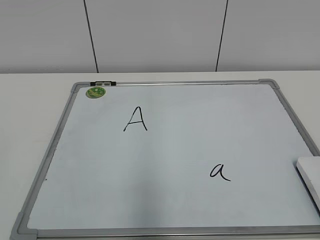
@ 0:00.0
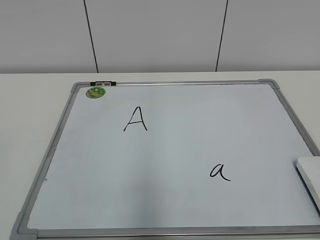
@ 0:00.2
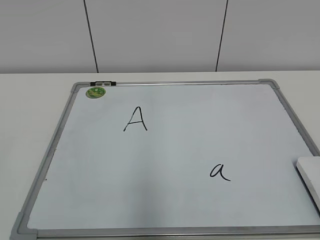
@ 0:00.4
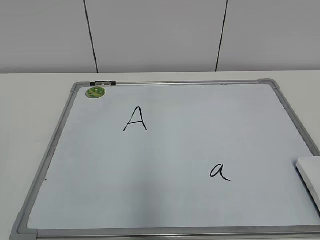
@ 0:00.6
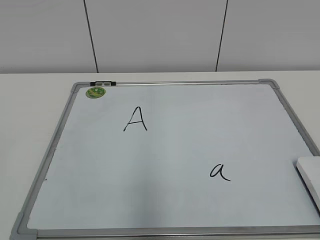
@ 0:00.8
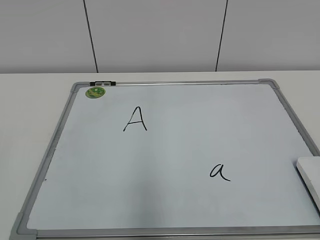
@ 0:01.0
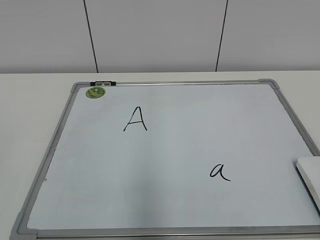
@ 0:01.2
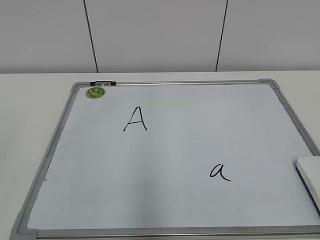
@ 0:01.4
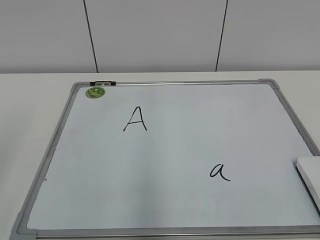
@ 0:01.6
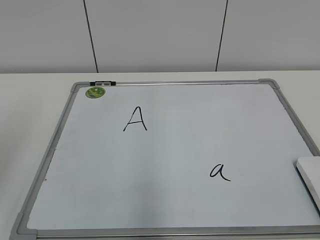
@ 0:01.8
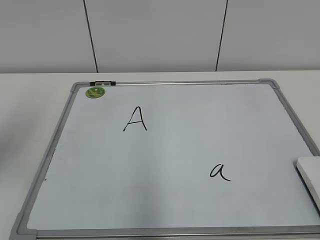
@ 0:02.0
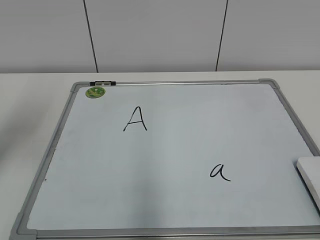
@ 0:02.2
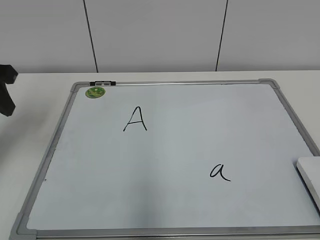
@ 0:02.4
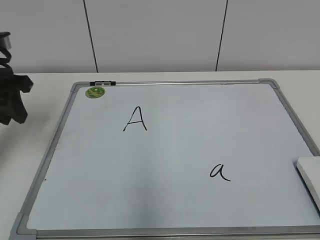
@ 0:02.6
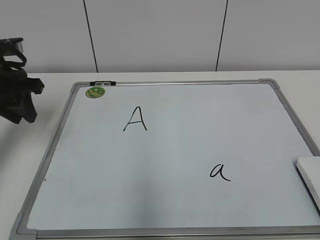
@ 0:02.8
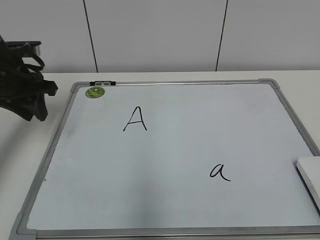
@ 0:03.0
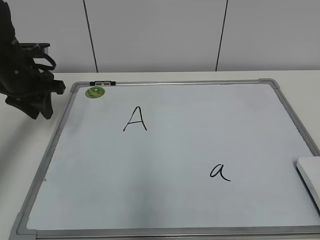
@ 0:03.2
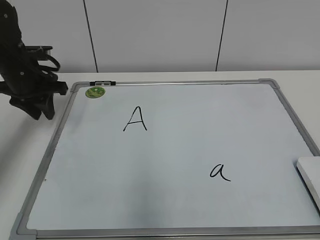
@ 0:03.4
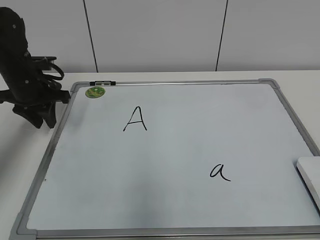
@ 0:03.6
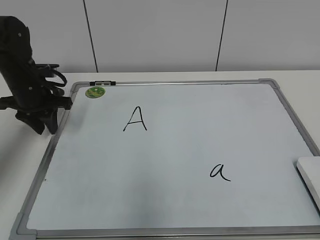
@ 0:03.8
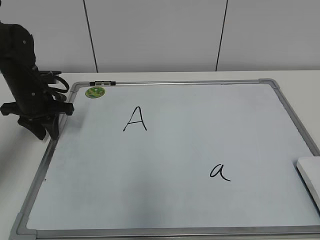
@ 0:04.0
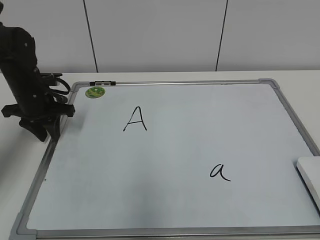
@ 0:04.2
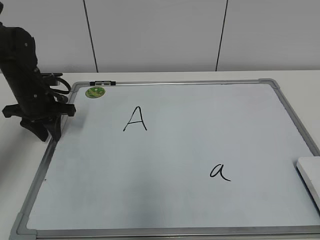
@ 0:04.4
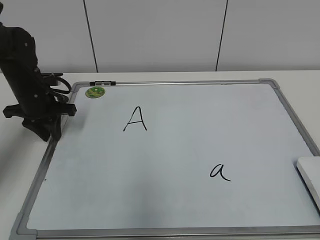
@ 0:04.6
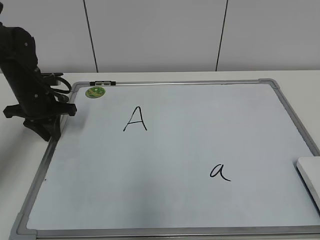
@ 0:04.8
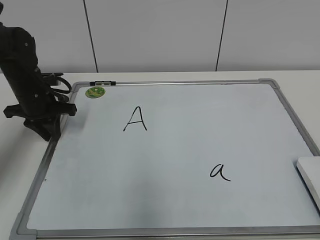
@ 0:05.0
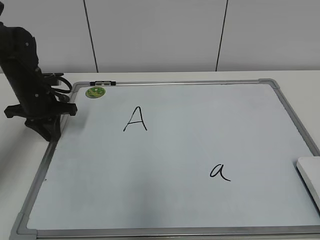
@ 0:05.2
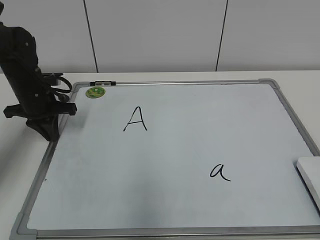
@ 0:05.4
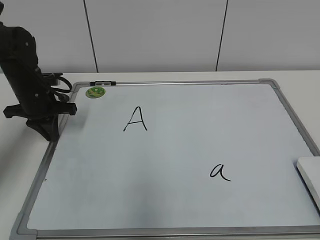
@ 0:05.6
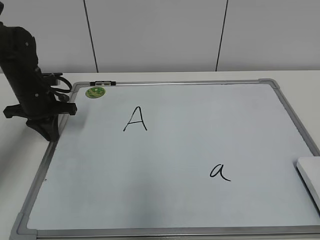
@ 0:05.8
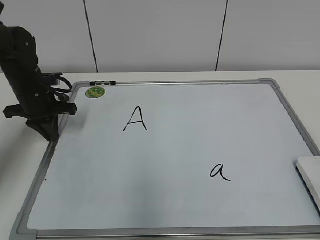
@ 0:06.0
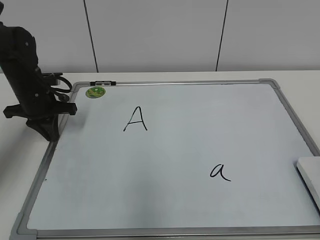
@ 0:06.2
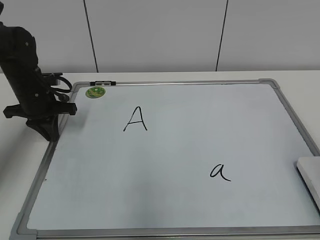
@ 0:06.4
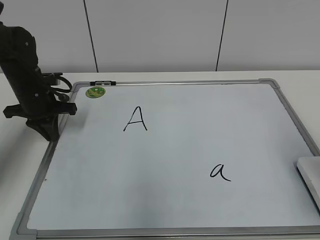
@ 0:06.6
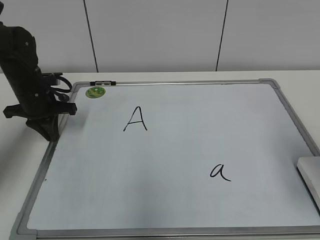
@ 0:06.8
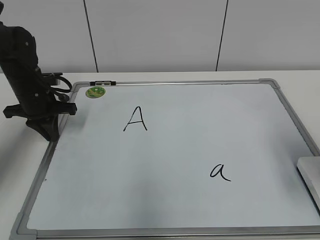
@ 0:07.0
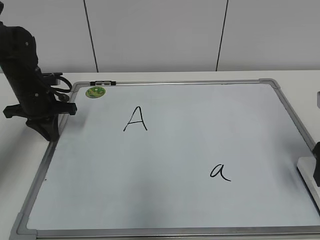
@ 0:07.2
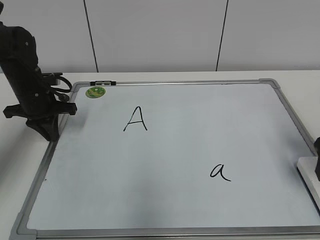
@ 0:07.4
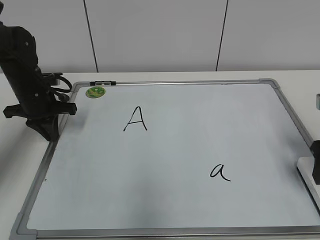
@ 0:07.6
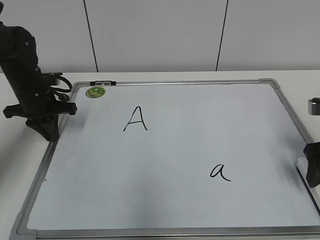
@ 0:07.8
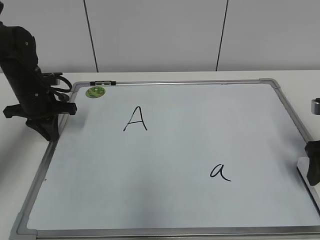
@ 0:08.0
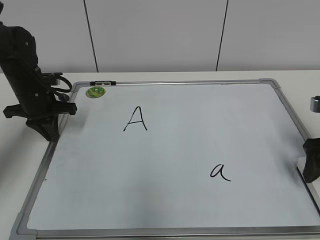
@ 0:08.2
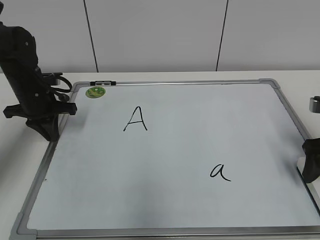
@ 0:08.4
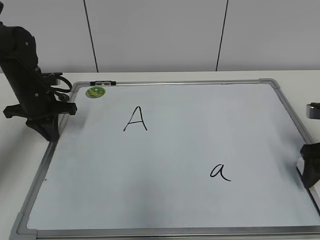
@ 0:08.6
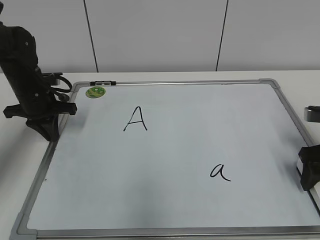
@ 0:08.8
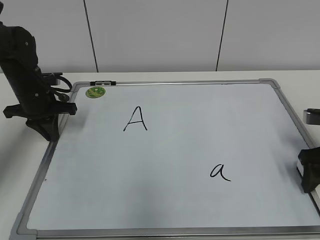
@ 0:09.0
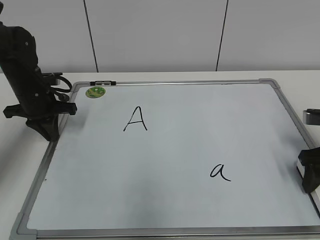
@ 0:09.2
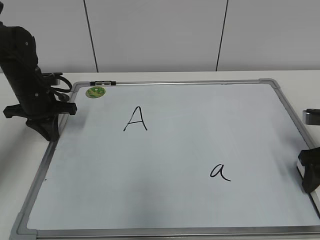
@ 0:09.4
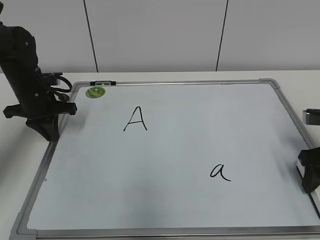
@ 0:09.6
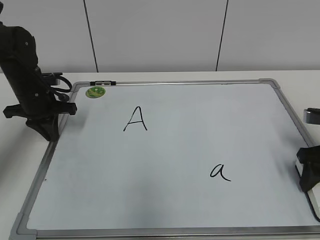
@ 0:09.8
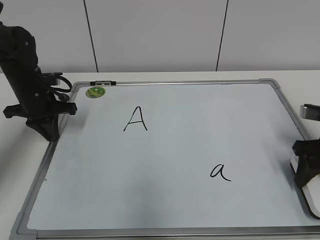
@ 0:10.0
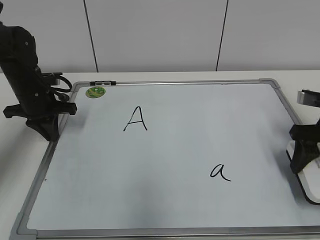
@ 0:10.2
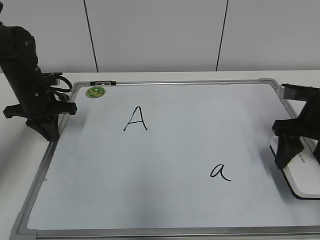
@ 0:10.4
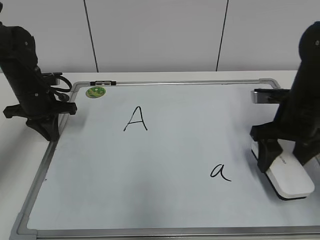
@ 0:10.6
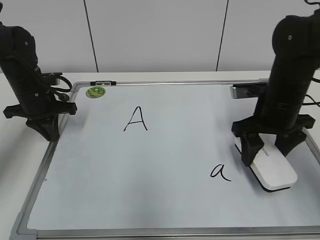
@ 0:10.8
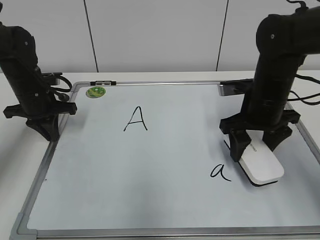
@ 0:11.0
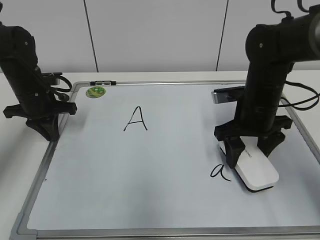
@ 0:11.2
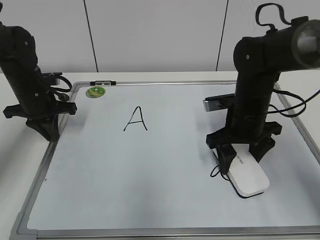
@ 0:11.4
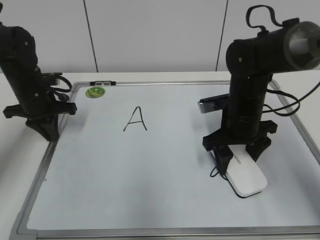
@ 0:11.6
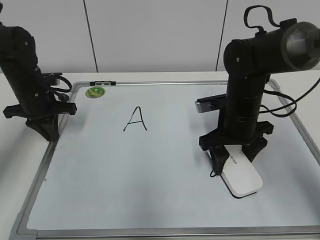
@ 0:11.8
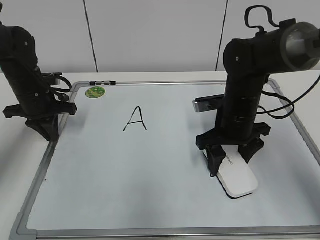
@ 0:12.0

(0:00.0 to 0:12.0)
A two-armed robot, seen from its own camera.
Task of the whole recording: pick up the eraser on the blackboard and erase the letter "a".
Step, 0:00.0 - 0:05.4: Hold the drawing board steady with your left hand.
0:01.6 - 0:03.0: The left gripper goes roughly 30 cm forward.
0:03.0 - 0:04.4: The left gripper is displaced downward by approximately 10 cm.
0:04.4 - 0:06.0: The left gripper closes up.
0:06.0 - 0:07.6: The right gripper moves forward, roughly 25 cm, and opens its fingers.
0:07.6 - 0:09.0: The right gripper is displaced downward by about 5 cm.
0:09.0 - 0:10.4: The right gripper changes place by approximately 5 cm, and closes up.
0:10.4 - 0:12.0: The right gripper heads to the left, covering roughly 15 cm.

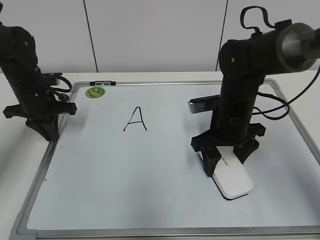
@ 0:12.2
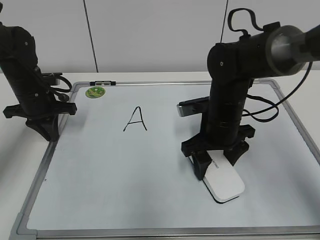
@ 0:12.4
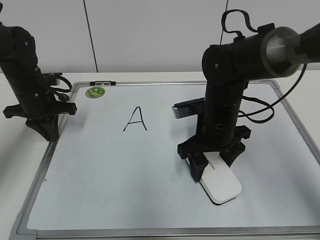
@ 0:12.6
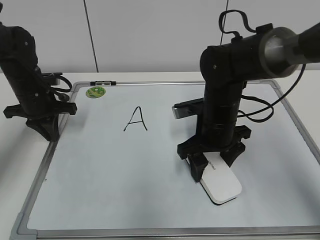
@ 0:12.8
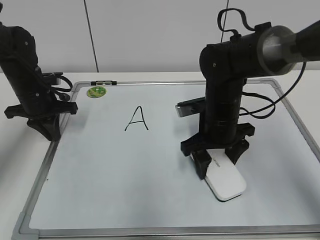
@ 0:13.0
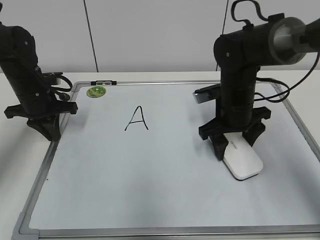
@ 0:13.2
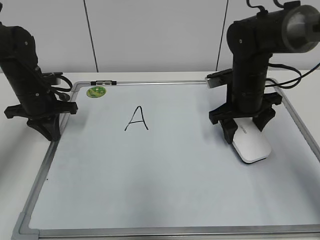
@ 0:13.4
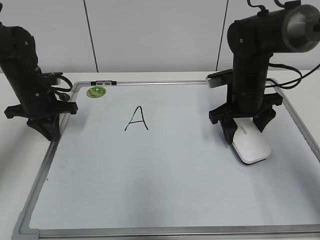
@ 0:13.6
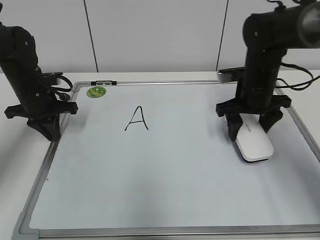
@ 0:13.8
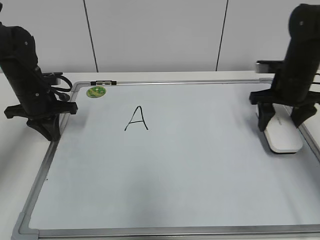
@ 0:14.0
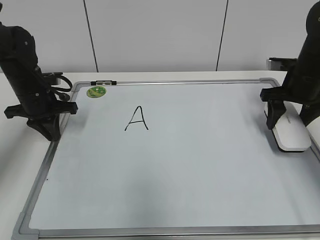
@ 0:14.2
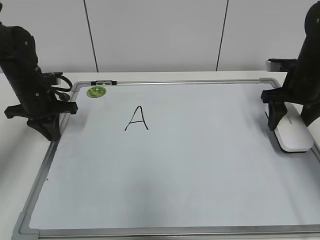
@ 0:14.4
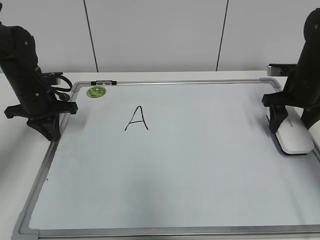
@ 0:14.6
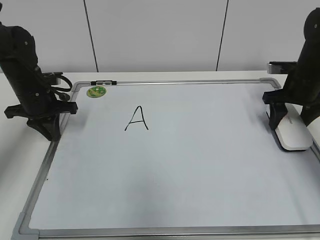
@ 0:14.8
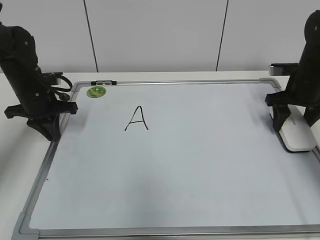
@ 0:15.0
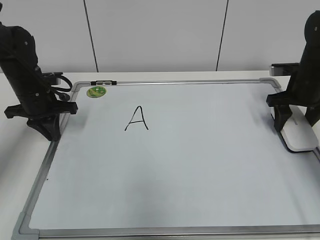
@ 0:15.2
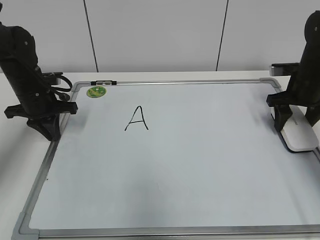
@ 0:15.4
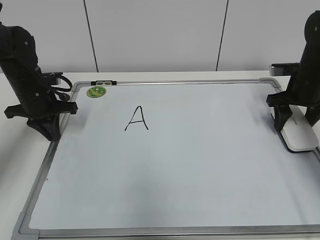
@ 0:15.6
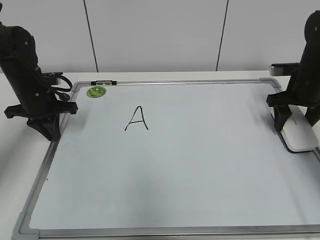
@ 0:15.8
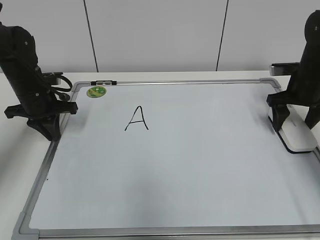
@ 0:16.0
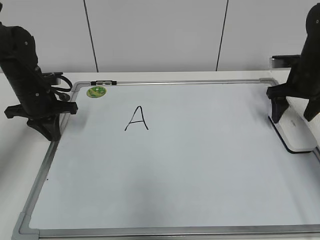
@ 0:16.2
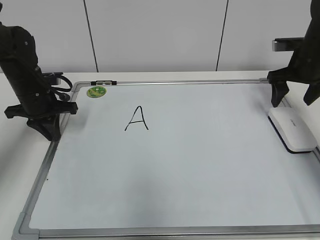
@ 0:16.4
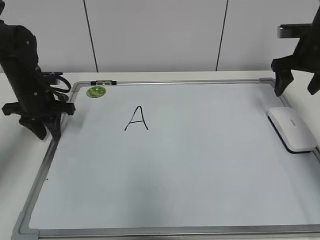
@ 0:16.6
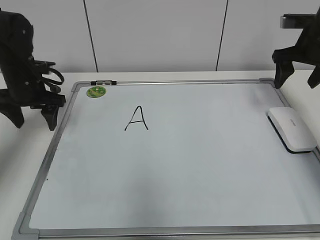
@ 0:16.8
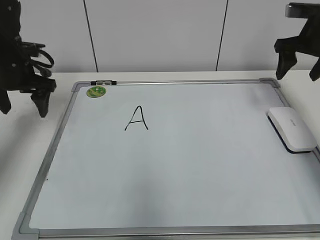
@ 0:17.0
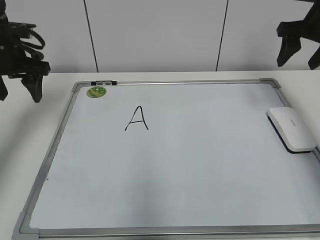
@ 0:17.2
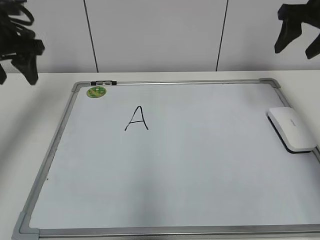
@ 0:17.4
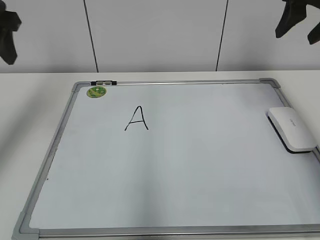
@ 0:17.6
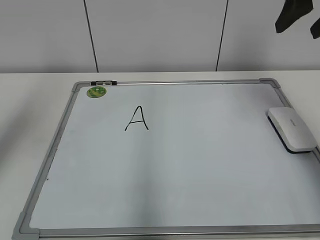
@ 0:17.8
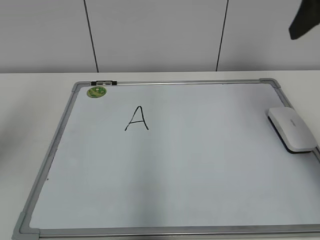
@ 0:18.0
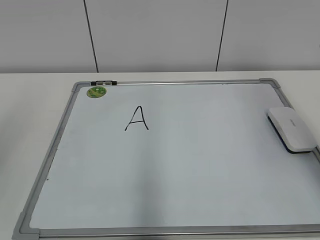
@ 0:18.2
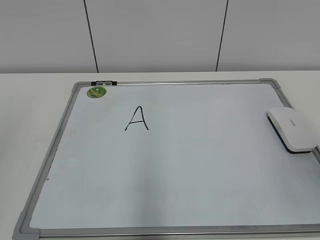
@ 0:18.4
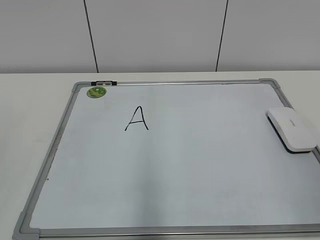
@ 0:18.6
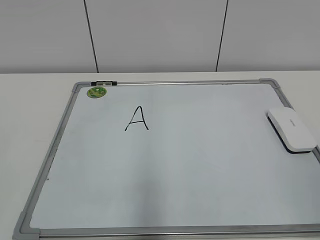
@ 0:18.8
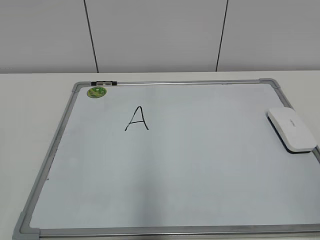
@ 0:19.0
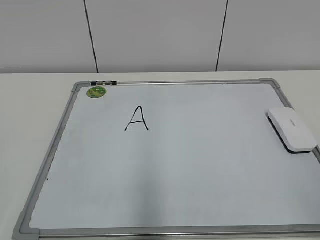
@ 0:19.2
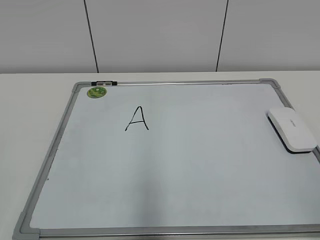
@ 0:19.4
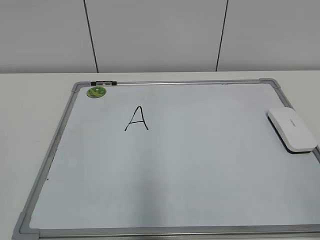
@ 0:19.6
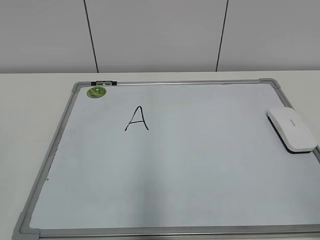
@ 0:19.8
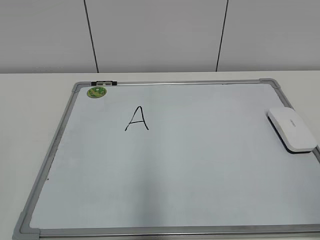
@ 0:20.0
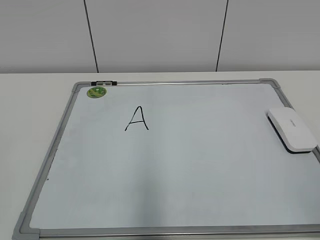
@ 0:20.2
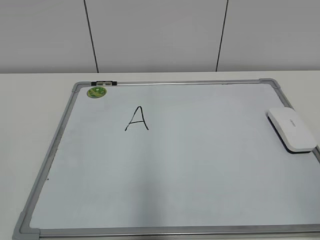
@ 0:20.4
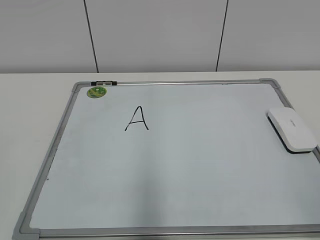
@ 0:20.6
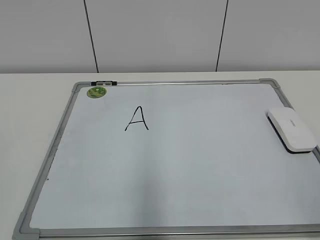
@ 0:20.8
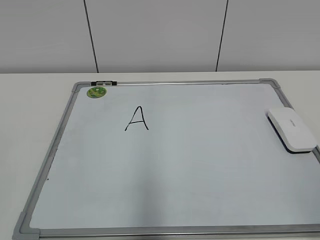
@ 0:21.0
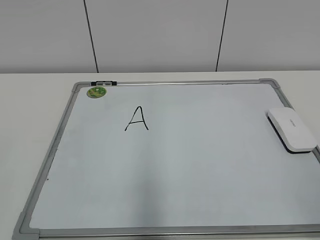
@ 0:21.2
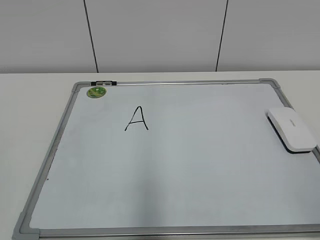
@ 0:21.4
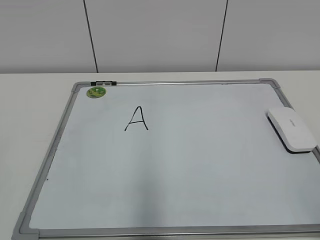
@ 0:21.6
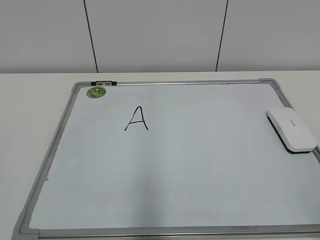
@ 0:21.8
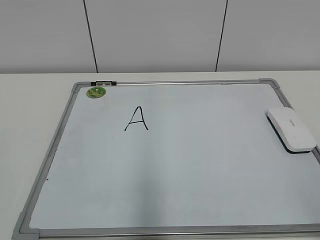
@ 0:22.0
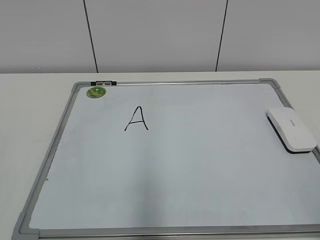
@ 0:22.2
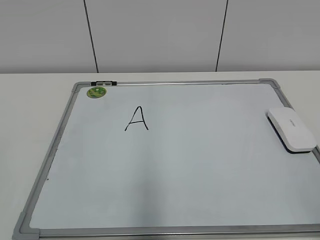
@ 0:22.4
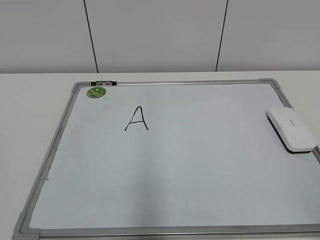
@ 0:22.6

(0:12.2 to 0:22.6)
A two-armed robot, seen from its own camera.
Task of the whole recording: pick up the eraser on the blackboard and erase the letter "a".
Step, 0:13.6 - 0:15.8: Put down the eraser with your right hand.
0:12.2 - 0:13.6: The right gripper changes place by some 5 cm.
0:13.6 - 0:15.2: The right gripper heads to the right, covering about 15 cm.
0:15.2 - 0:16.6: The right gripper travels upward by approximately 5 cm, and opens up.
0:16.6 - 0:18.2: Both grippers travel together backward and upward, some 30 cm. The left gripper opens its fingers. The right gripper closes up.
0:18.2 - 0:19.6: The right gripper moves backward and downward, roughly 25 cm.
0:19.6 - 0:21.2: The two grippers keep their place.
